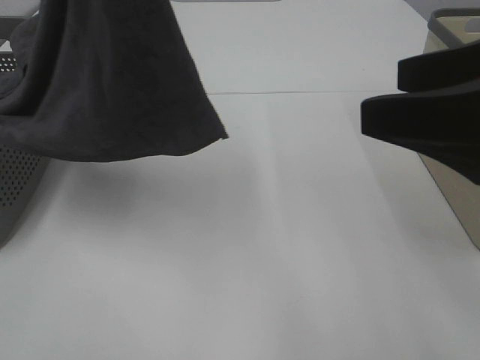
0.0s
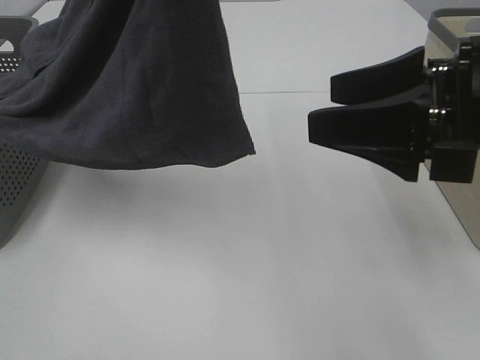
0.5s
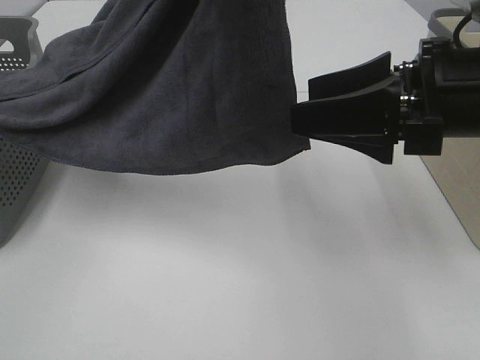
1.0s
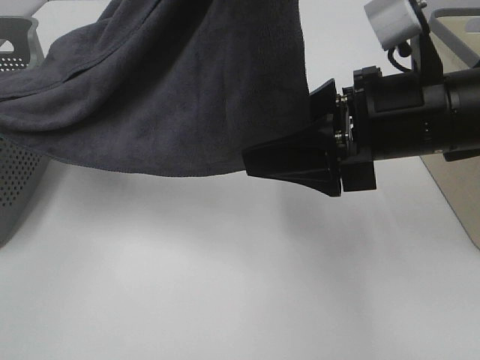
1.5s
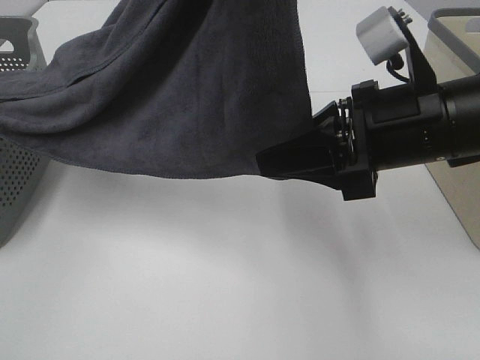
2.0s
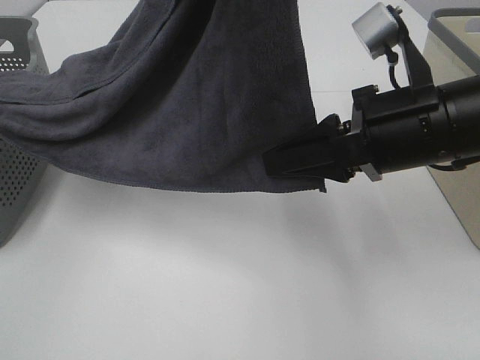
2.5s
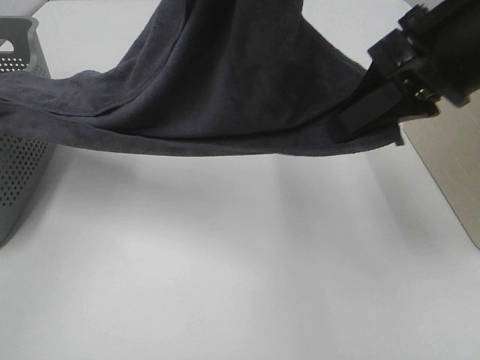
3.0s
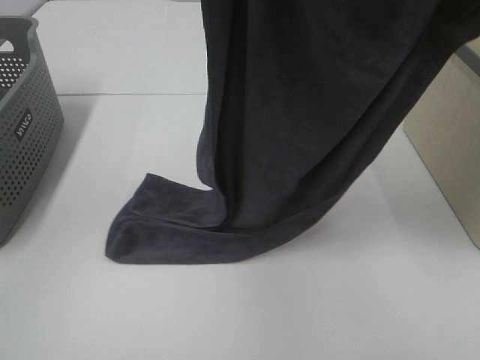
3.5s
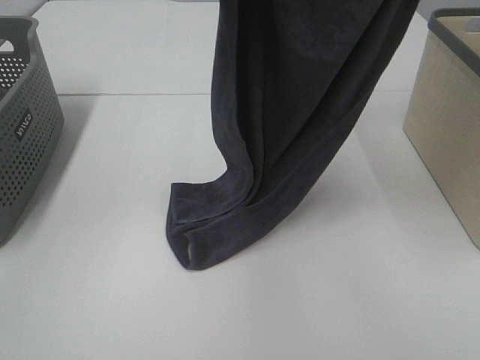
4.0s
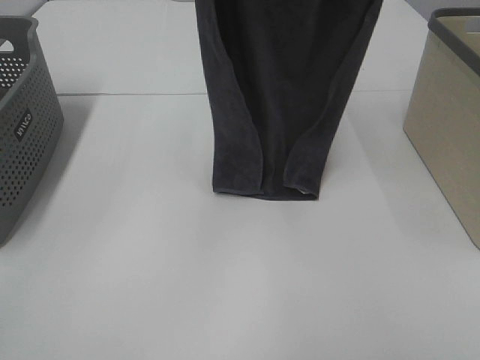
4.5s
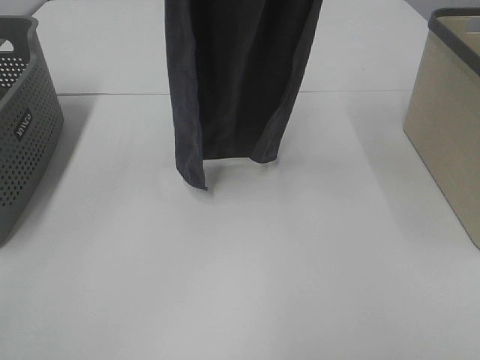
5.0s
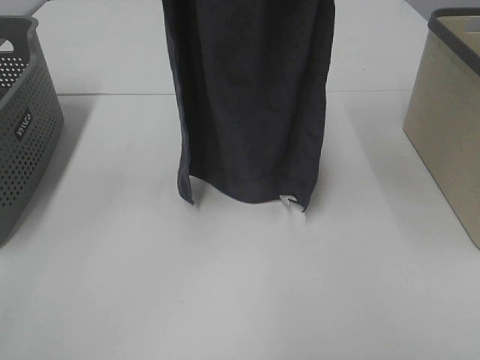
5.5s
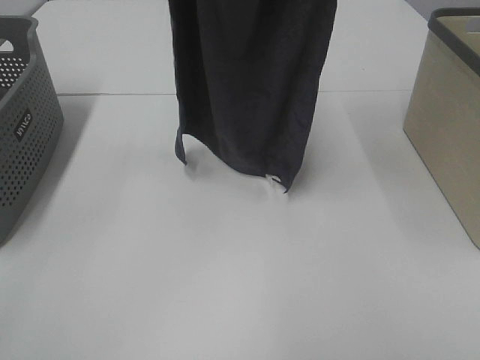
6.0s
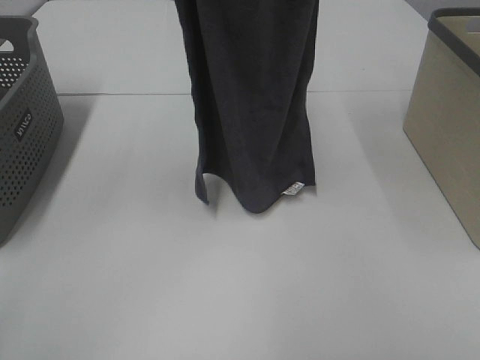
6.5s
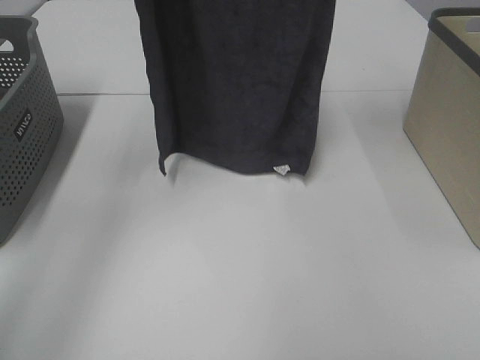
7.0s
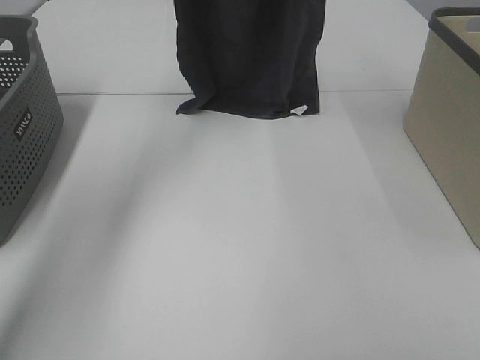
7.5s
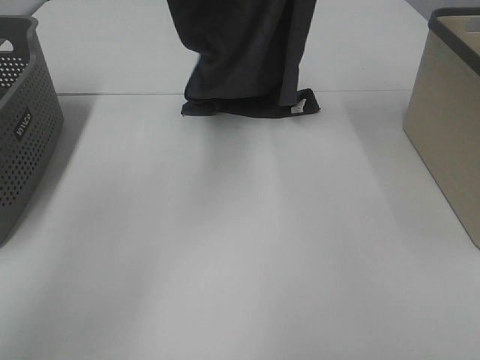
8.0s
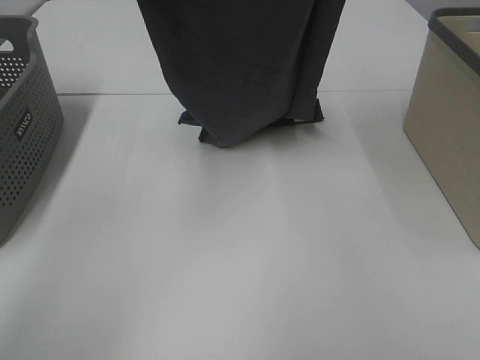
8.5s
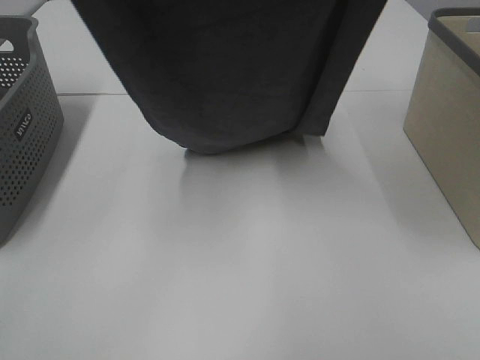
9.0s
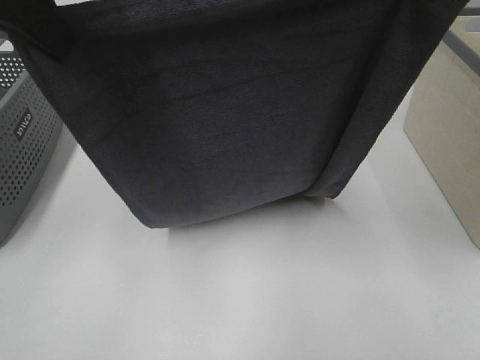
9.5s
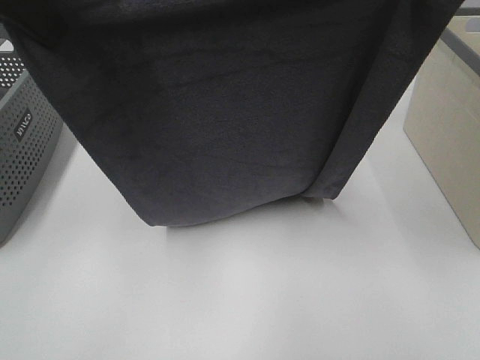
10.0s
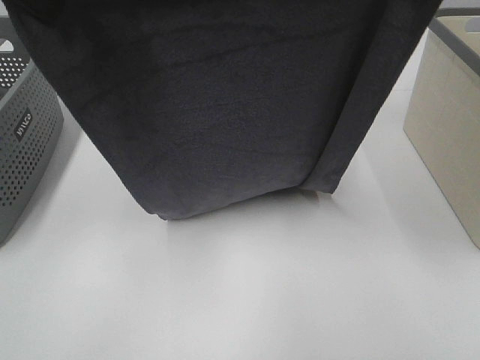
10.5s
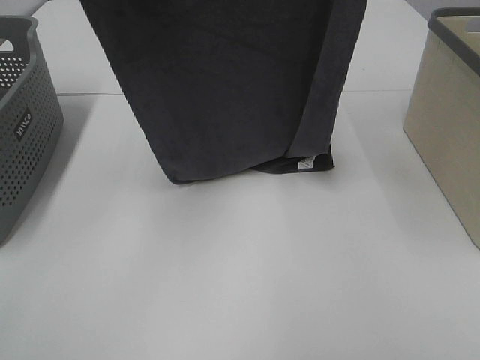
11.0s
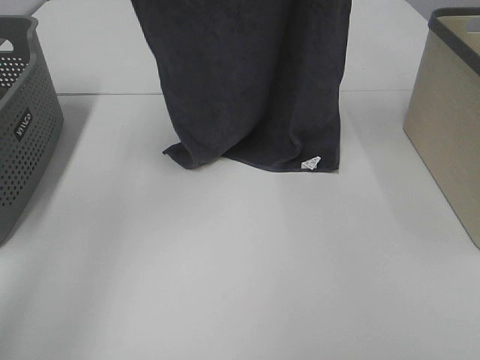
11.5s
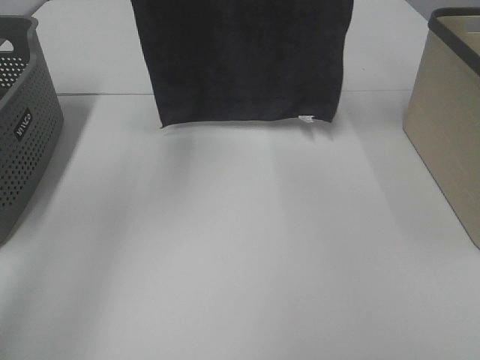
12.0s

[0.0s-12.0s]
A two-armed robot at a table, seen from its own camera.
Task of the whole recording: Remove the towel and place it.
Step, 0.0s to 3.0s: Right hand: grab a corner of the grey towel and straighten it.
0.0s to 2.0s: The left gripper is displaced to the right by about 10 cm, while the right gripper shifts some 15 cm forward, downward and to the left, and closes up.
2.0s to 4.0s: The right gripper heads upward, covering roughly 25 cm, and closes up.
4.0s to 6.0s: The left gripper heads forward and to the left, covering approximately 10 cm, while the right gripper moves upward, roughly 5 cm.
6.0s to 8.0s: The left gripper goes roughly 20 cm forward and downward. The right gripper travels forward and downward by about 15 cm.
8.0s to 10.0s: The grippers both shift backward by approximately 20 cm.
10.0s to 12.0s: The two grippers go about 20 cm forward and upward.

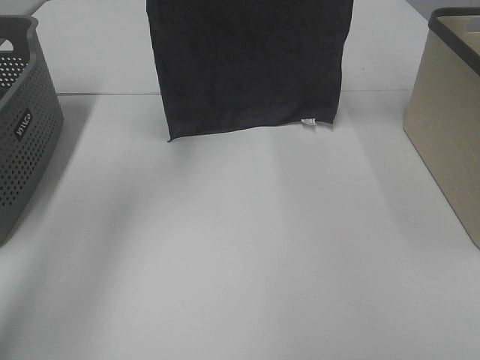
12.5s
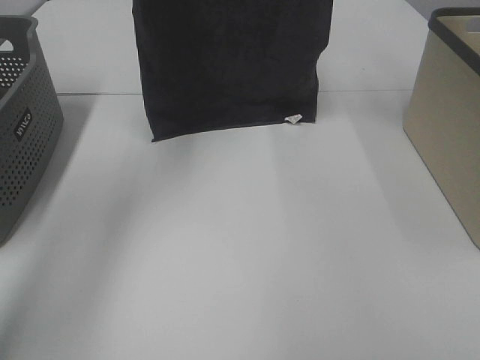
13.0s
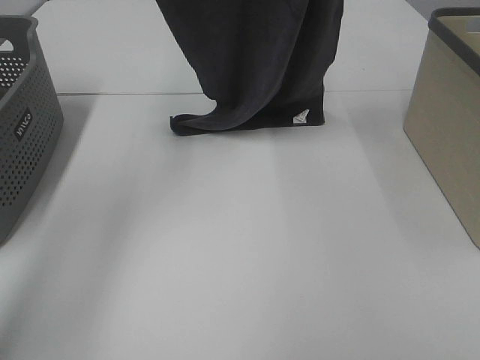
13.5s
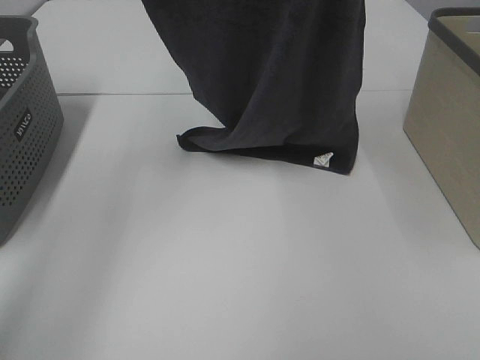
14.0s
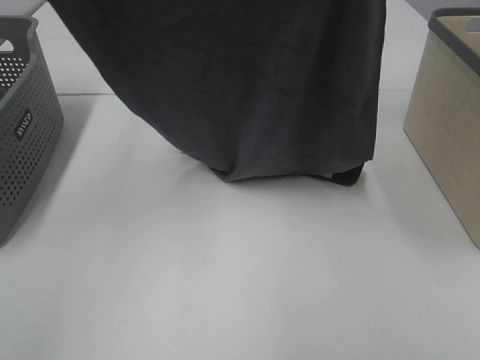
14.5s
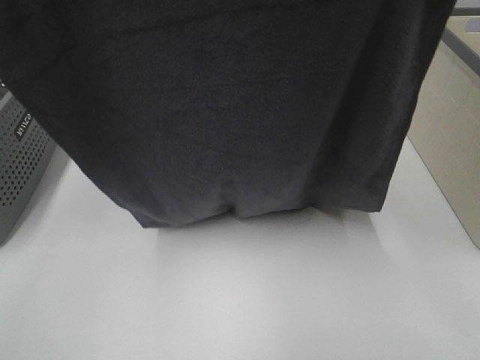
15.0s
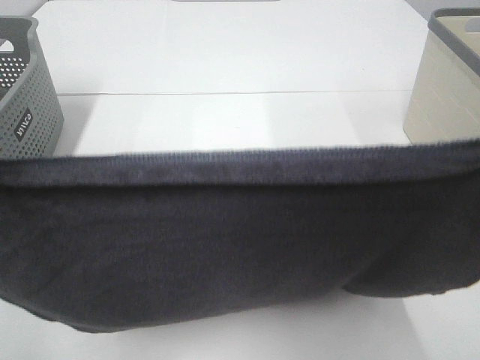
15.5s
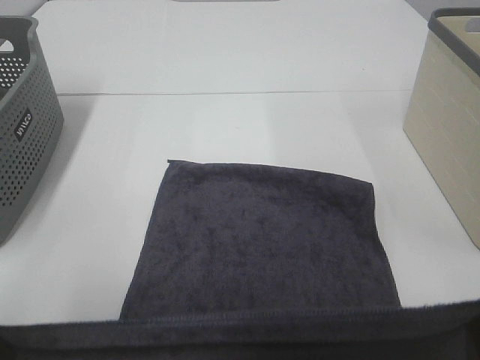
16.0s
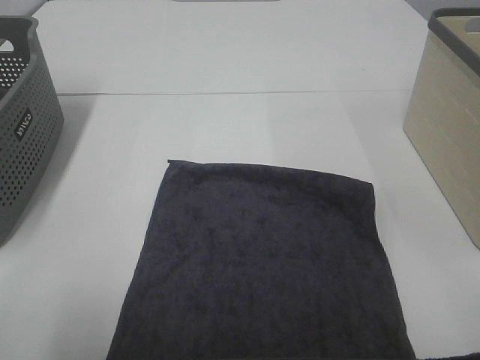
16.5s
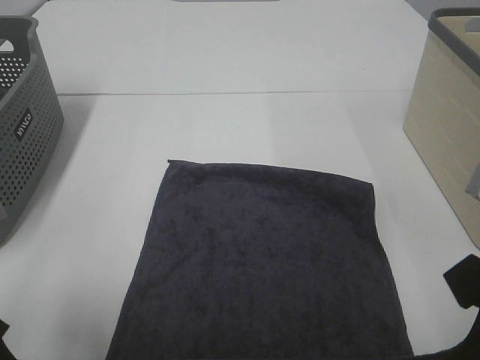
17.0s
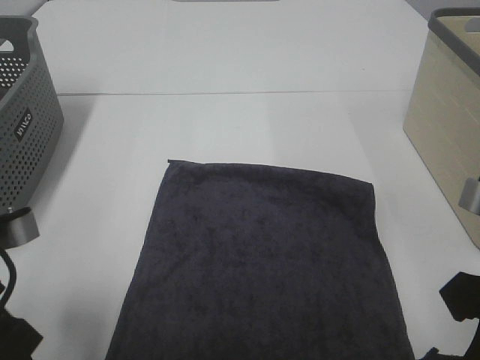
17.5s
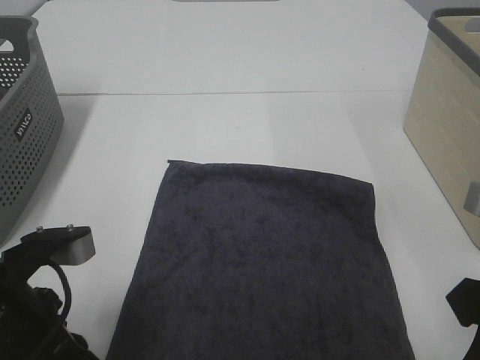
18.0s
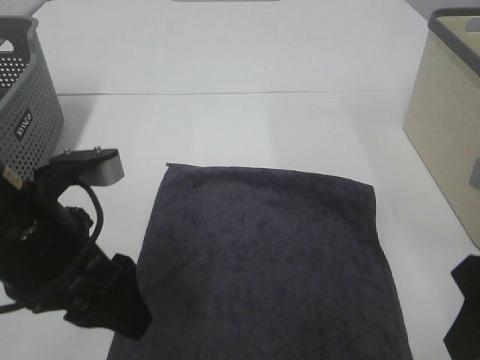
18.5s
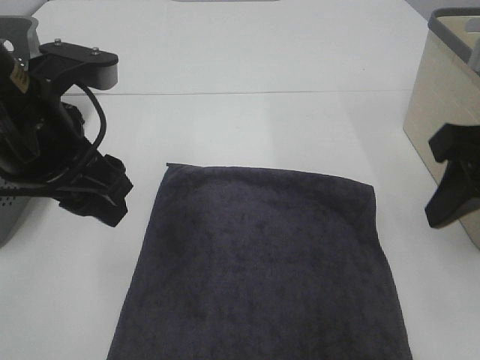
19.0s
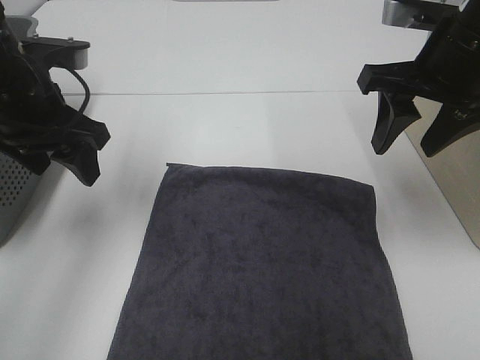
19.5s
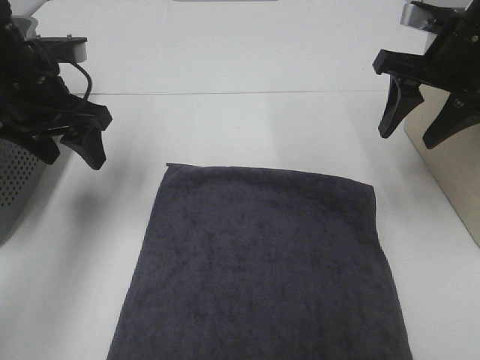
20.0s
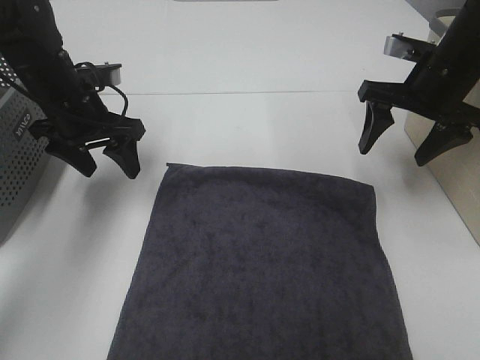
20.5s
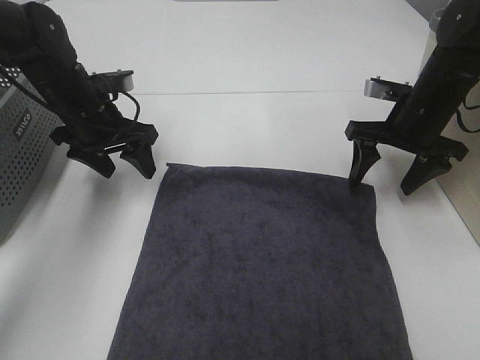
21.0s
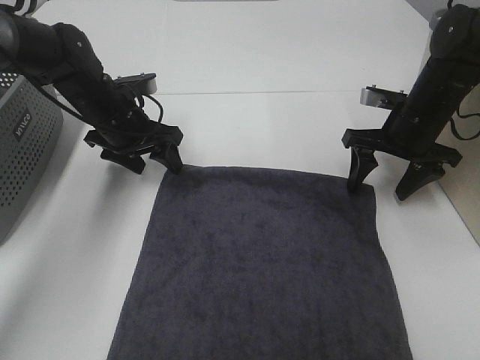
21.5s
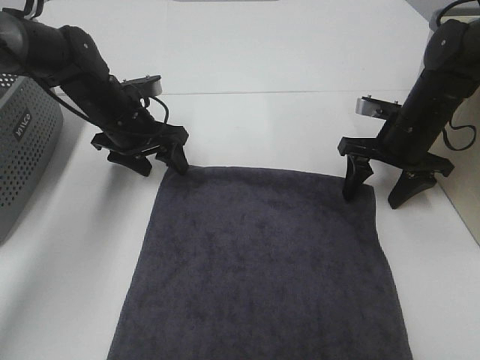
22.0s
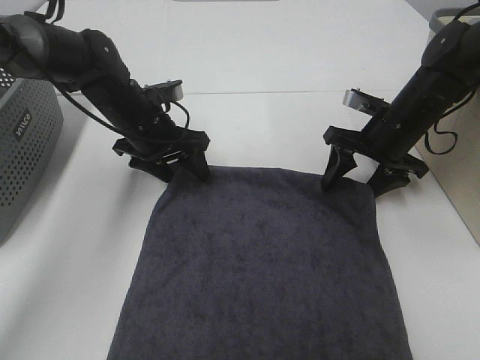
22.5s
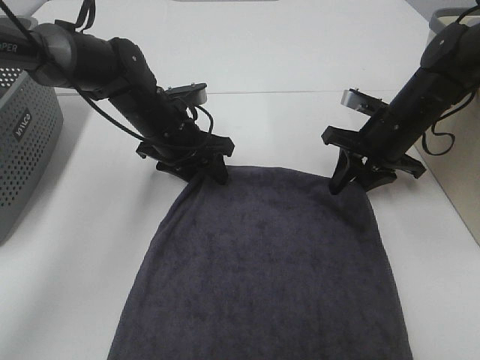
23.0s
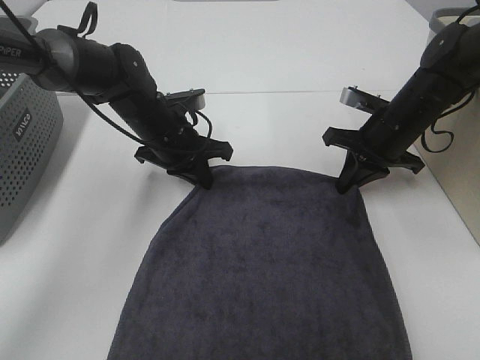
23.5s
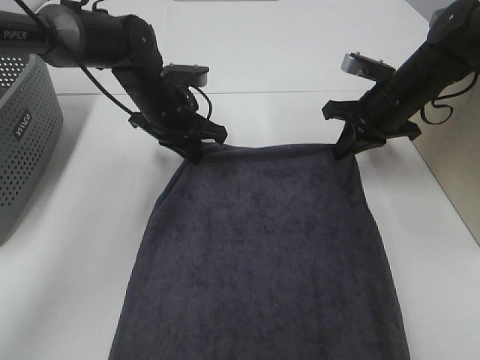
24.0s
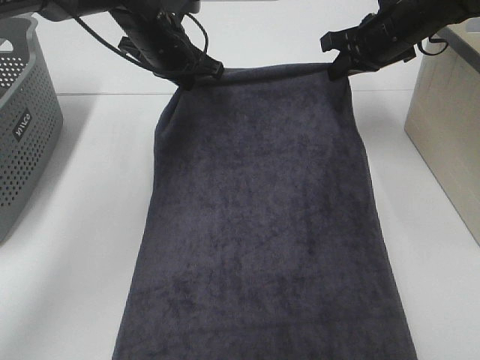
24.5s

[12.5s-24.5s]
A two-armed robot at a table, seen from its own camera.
Task of the whole recording: Remove the towel and place it.
Step, 13.0s to 20.5s: Left hand:adjust the gray towel.
Step, 13.0s to 22.0s: Right hand:adjust the gray towel.
12.5s to 14.5s: Both grippers travel together backward, approximately 20 cm.
14.5s to 16.5s: Both grippers move downward and backward, approximately 30 cm.
16.5s to 18.5s: The left gripper moves forward and to the right, roughly 10 cm, and opens up. The right gripper goes some 5 cm forward, and opens its fingers.
18.5s to 20.5s: The grippers both shift forward by about 25 cm.
20.5s to 22.5s: The right gripper shifts roughly 10 cm downward. Meanwhile the left gripper goes some 10 cm to the right and downward.
22.5s to 24.5s: Both grippers move upward and forward, about 10 cm. The right gripper closes up. The left gripper closes up.

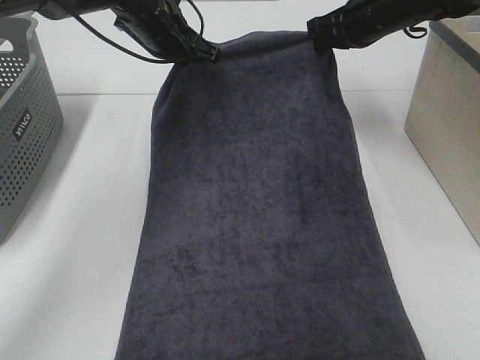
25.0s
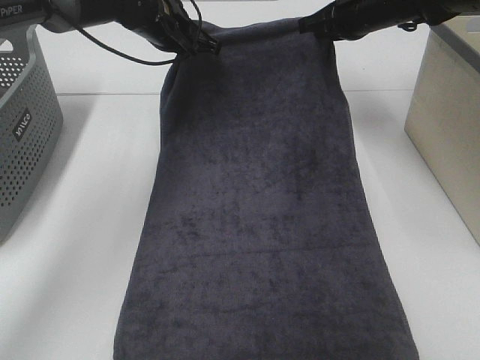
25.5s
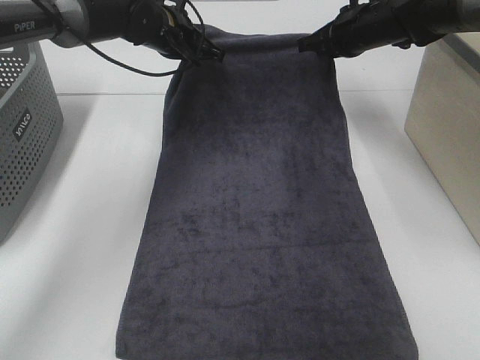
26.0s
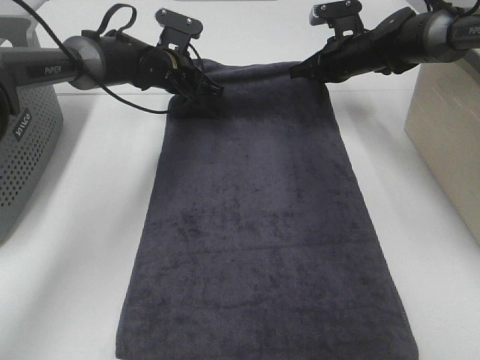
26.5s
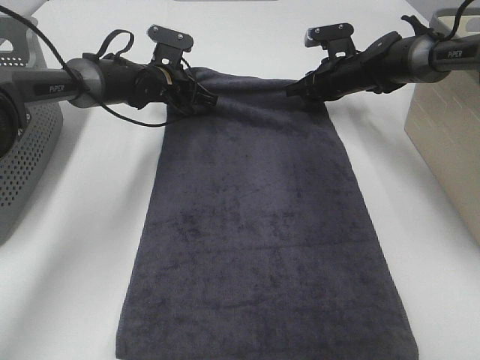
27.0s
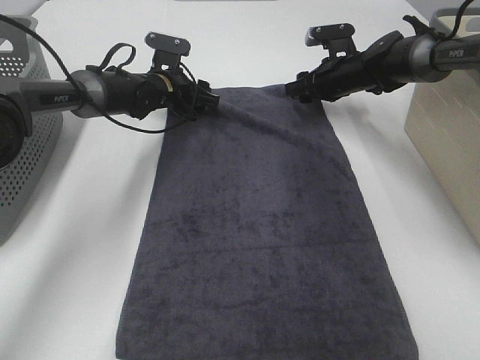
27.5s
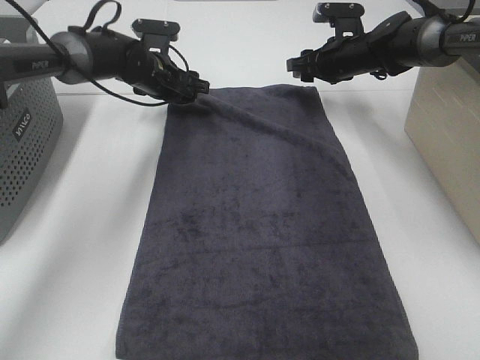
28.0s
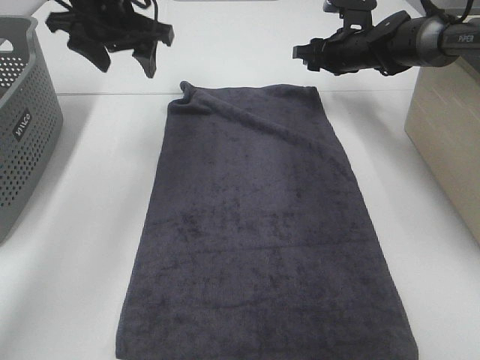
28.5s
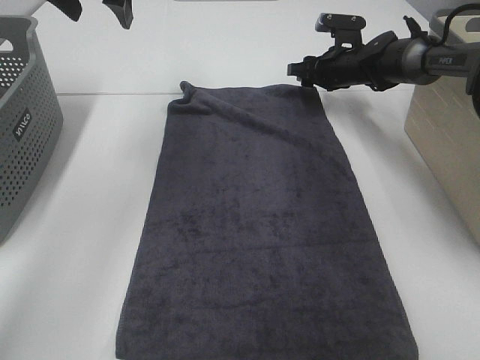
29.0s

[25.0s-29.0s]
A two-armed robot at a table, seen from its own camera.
Task of the whole recording: Remove the towel and place it.
25.0s to 27.0s: The left gripper moves downward, some 10 cm. The right gripper shifts some 15 cm downward and forward, and opens.
27.0s to 29.0s: The left gripper goes some 25 cm upward and backward, and opens up.
